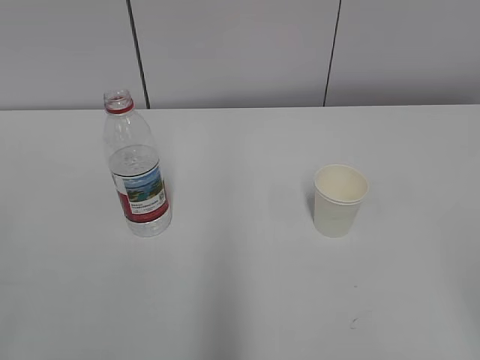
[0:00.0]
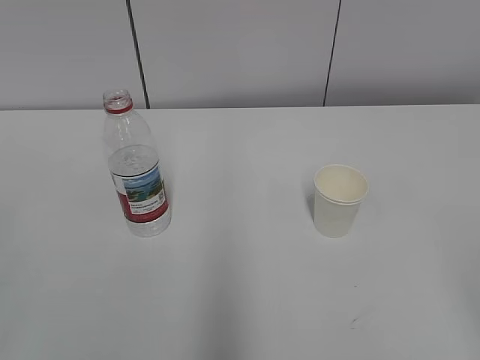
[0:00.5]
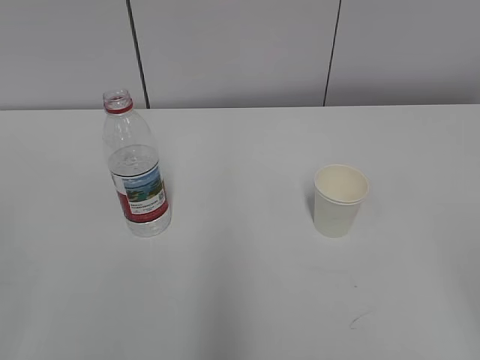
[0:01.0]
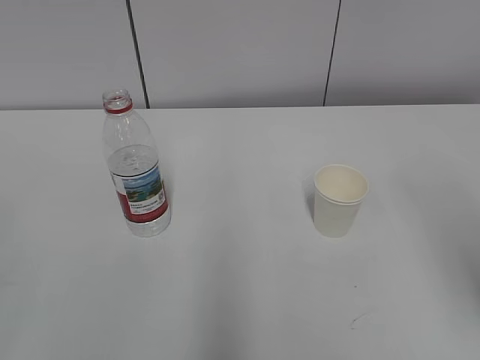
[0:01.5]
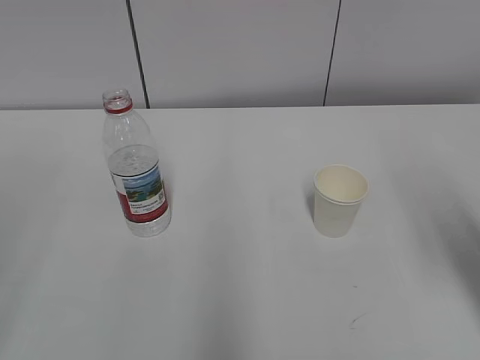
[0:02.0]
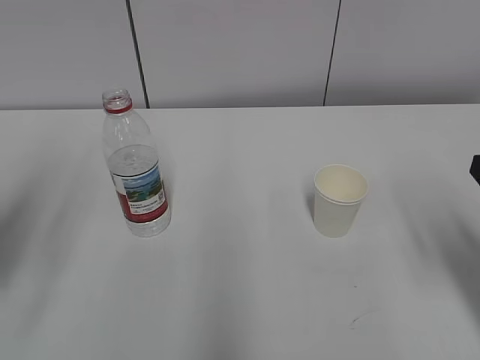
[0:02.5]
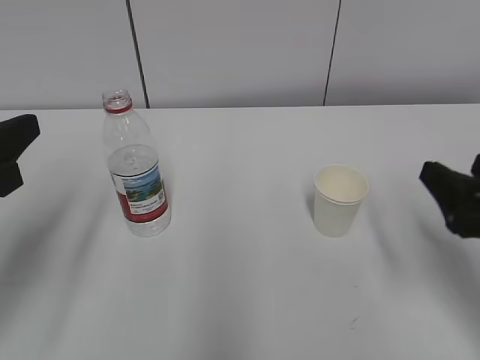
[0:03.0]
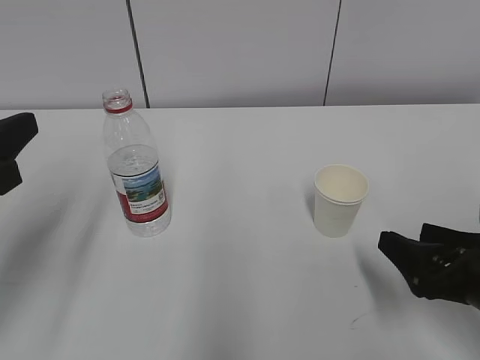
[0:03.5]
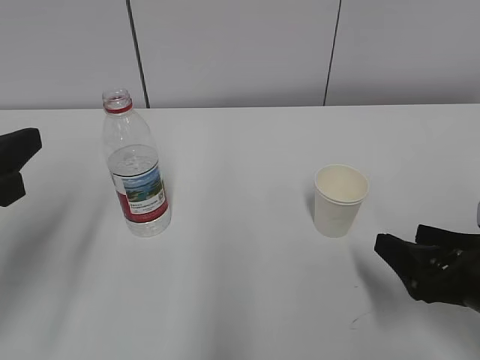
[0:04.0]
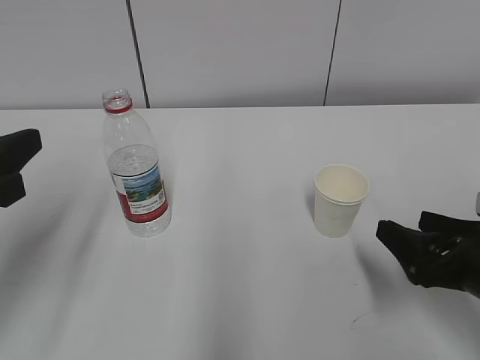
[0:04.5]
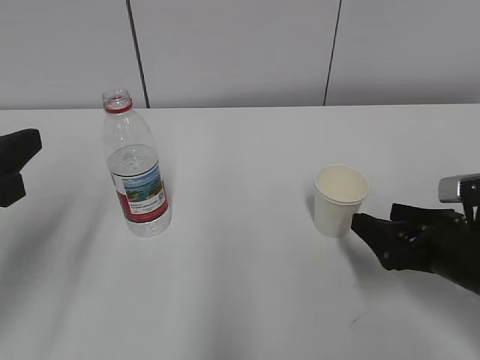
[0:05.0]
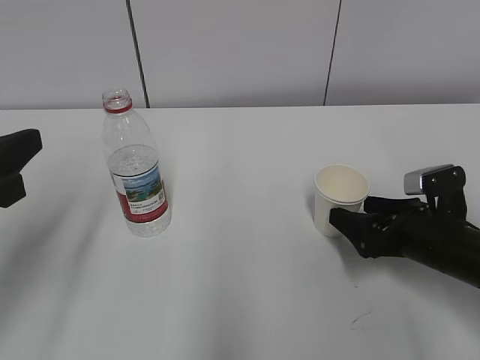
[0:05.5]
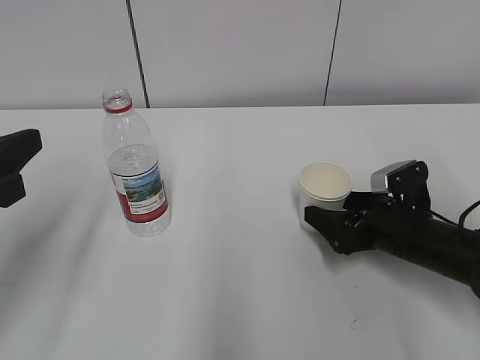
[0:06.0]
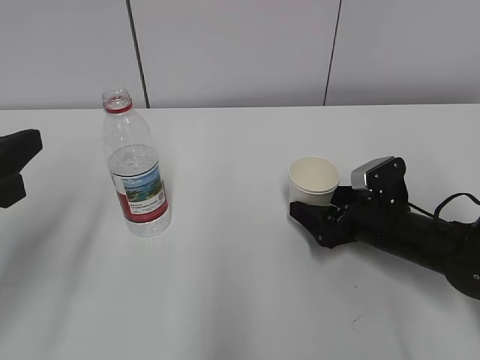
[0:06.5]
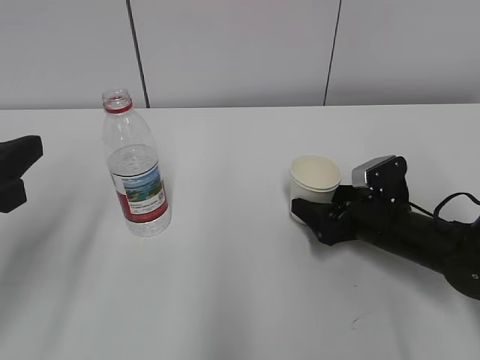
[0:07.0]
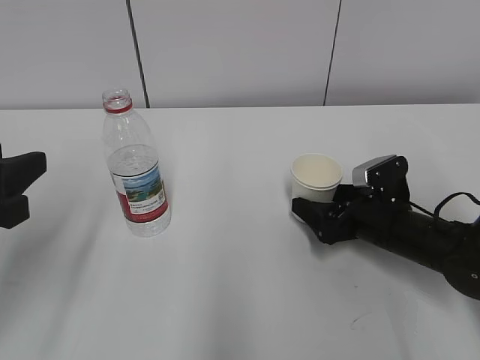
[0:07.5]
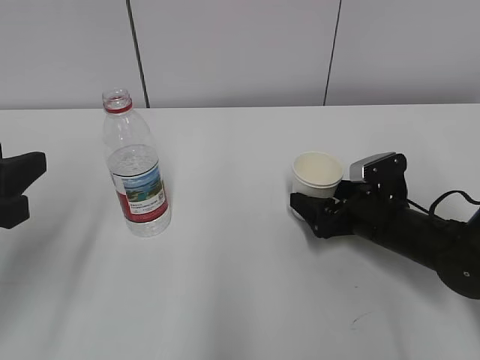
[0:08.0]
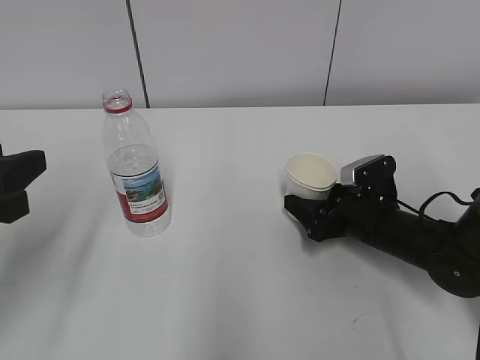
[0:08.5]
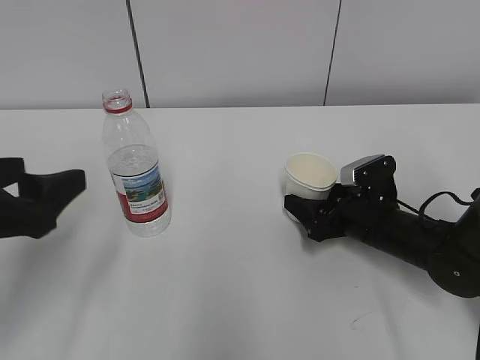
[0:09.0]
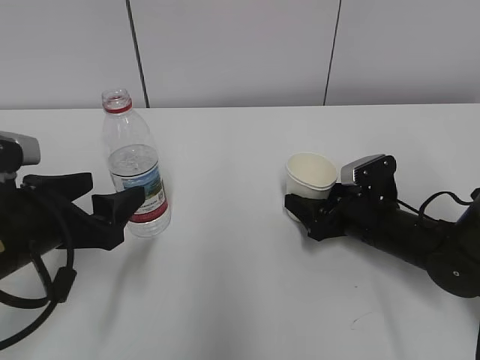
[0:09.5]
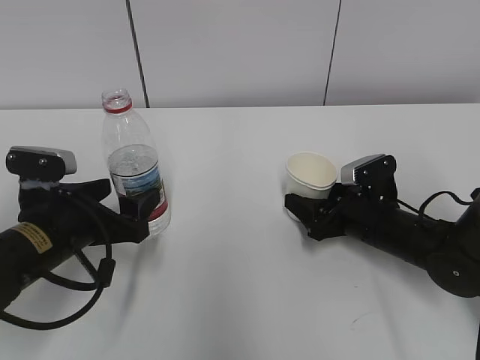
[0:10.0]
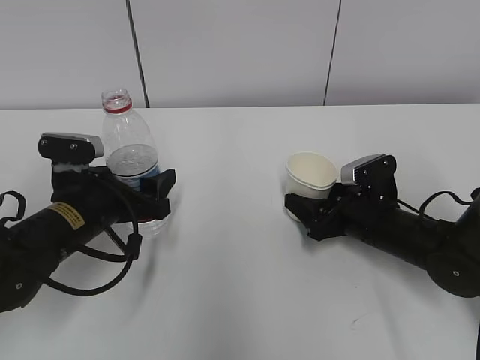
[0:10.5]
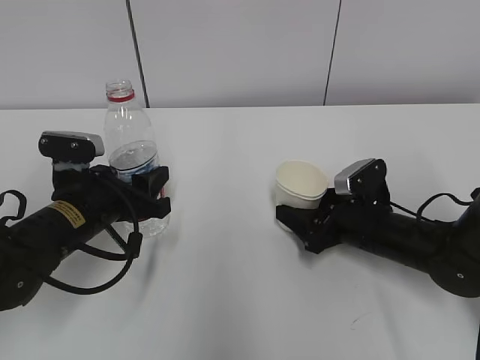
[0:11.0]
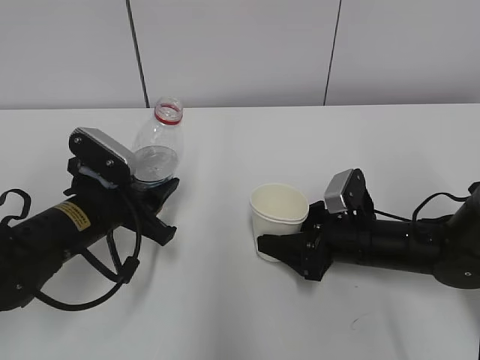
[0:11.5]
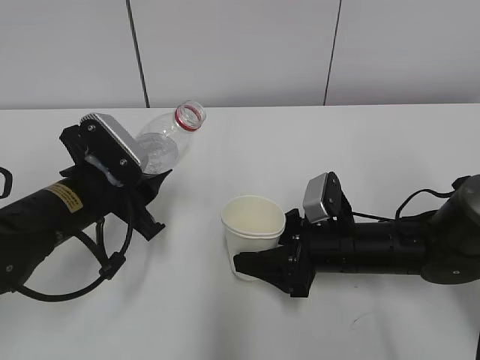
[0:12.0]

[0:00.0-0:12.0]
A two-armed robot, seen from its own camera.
Step, 0:00.0 to 0:08.5: Grab the paper cup with the right hand.
Step, 0:09.0 to 0:09.5: Grab the water bottle with the left hand.
0:02.0 to 0:04.0: The left gripper moves forward, downward and to the right, about 20 cm; the right gripper shifts some 15 cm downward.
0:04.0 to 0:06.0: The right gripper travels forward and downward by approximately 15 cm, and opens.
0:06.0 to 0:08.0: The right gripper closes, then reopens.
0:08.0 to 0:10.0: The left gripper moves downward, forward and to the right, about 15 cm, and opens up. The right gripper closes.
0:10.0 to 0:12.0: The right gripper travels to the left by some 5 cm. The left gripper closes up.

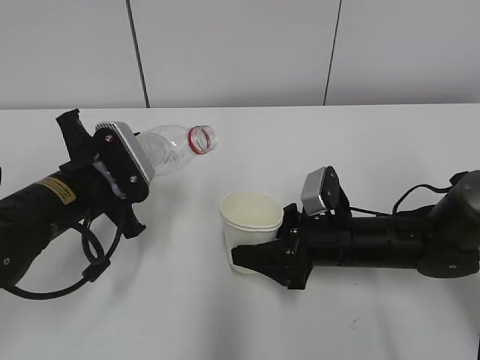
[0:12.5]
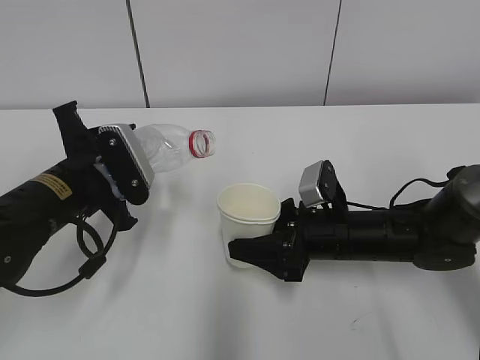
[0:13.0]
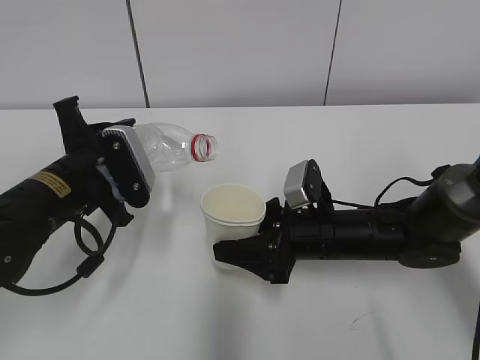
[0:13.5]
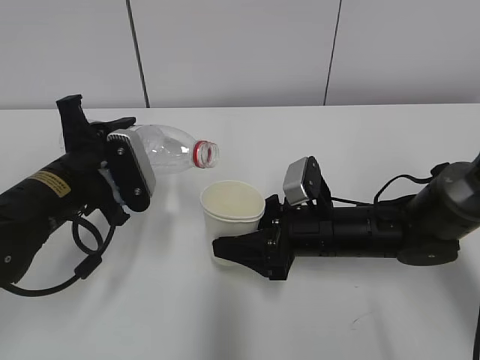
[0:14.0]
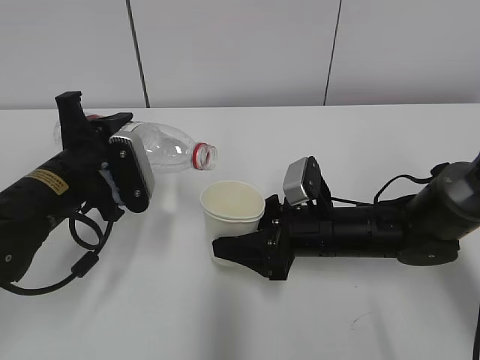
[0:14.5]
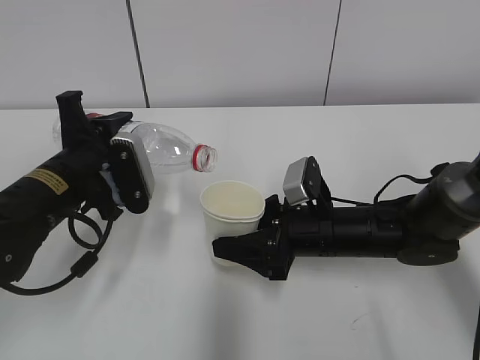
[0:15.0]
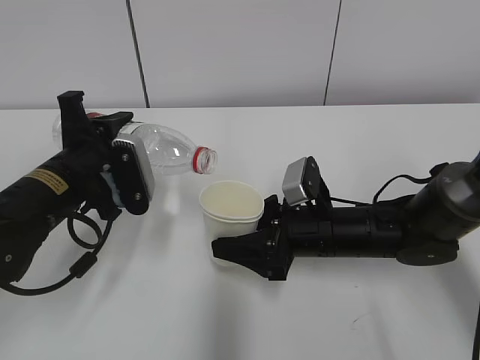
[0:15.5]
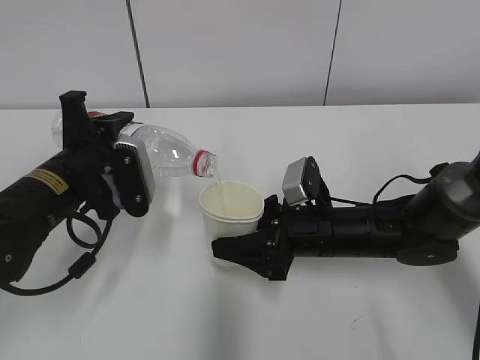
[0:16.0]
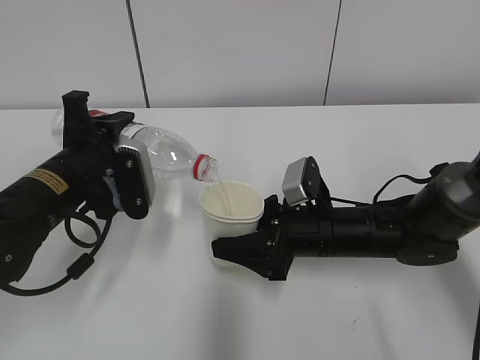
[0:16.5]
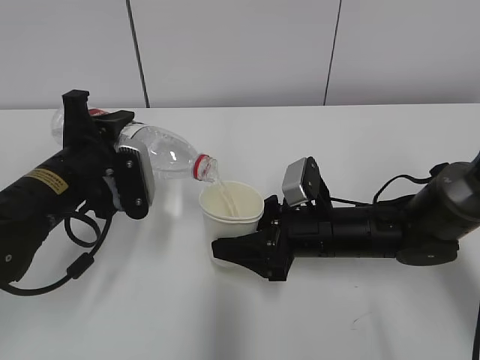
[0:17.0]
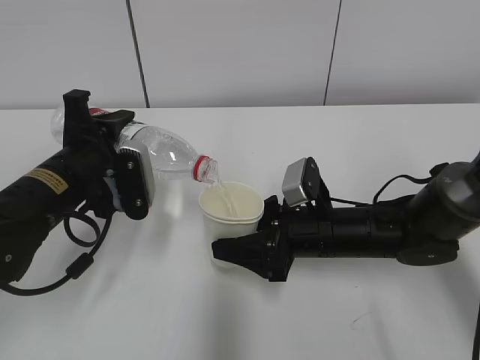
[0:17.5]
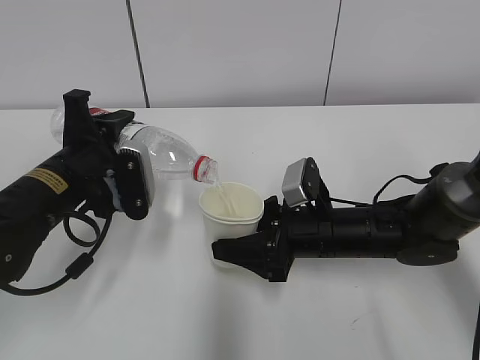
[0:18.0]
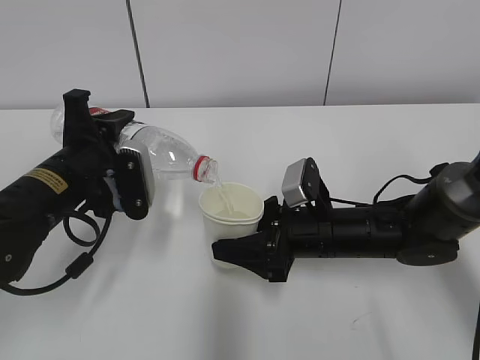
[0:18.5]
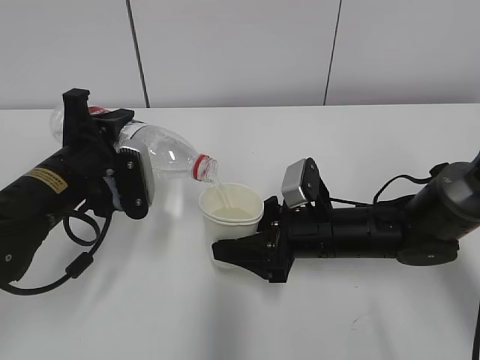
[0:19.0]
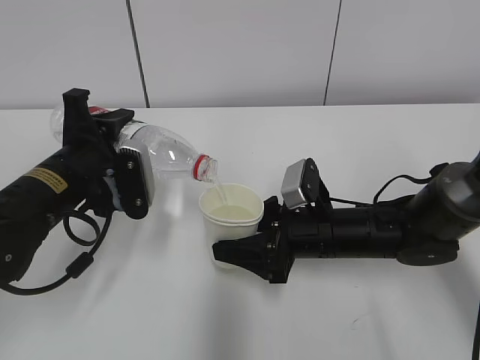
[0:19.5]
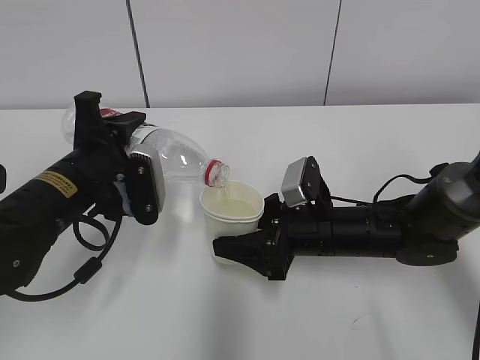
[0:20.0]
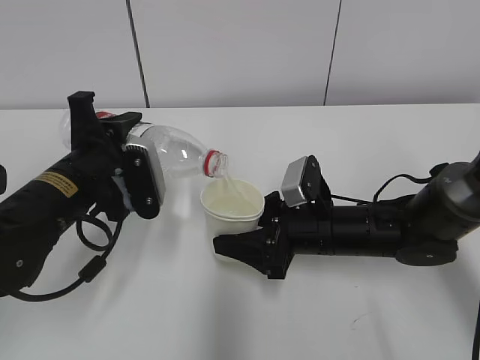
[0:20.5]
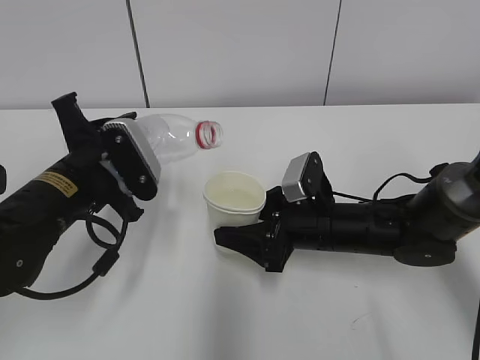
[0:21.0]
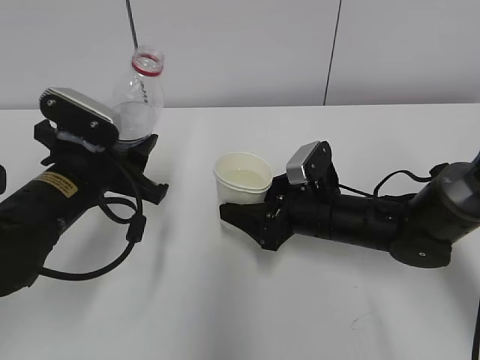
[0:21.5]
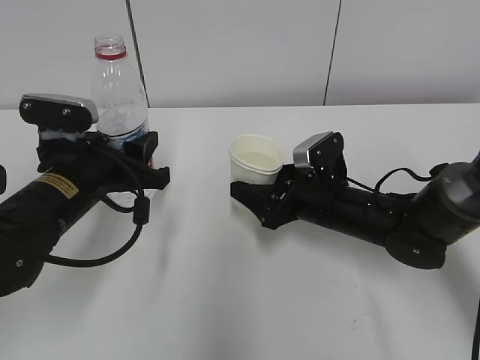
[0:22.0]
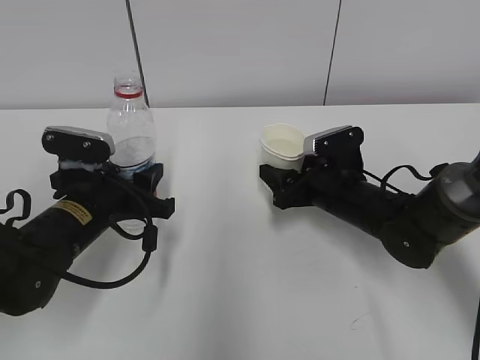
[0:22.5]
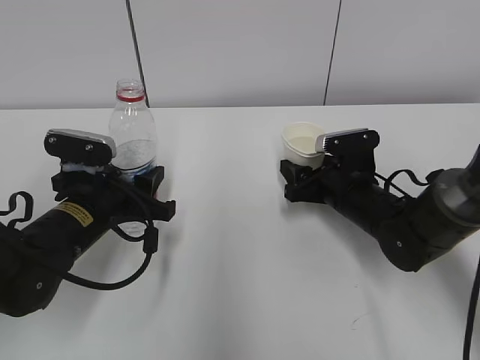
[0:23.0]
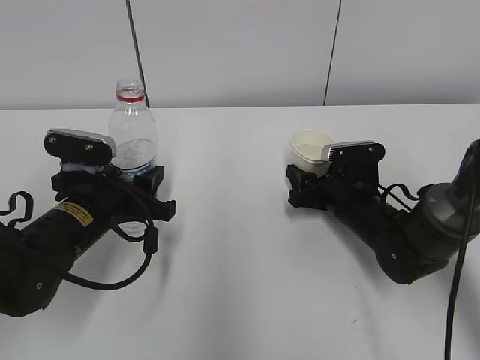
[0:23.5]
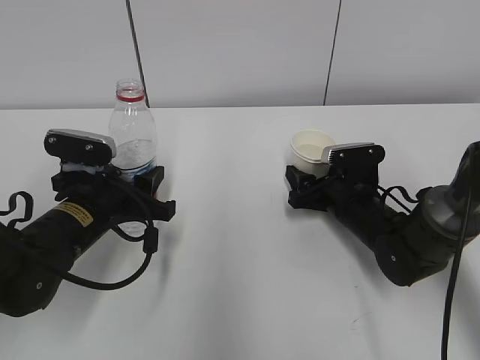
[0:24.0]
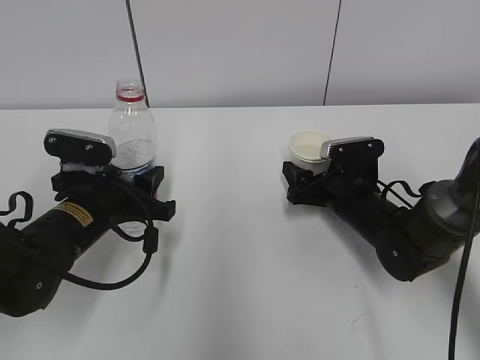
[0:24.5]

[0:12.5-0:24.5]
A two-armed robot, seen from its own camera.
Step, 0:13.5 to 0:17.0: Fill water with the right hand.
Step, 0:13.5 to 0:17.0: Pour water with the left hand.
Step, 0:18.5 to 0:20.0: Place the paper cup with the right hand.
Step, 0:20.5 to 0:22.5: Place the water bottle with the left hand.
0:14.5 to 0:16.5: The grippers make only small movements.
0:16.5 to 0:18.5: Both grippers stay put.
0:18.5 to 0:20.5: There are only small adjustments of the grippers.
0:20.5 to 0:22.5: The right gripper ends up some 5 cm from where it was.
0:22.5 to 0:24.5: The right gripper opens.

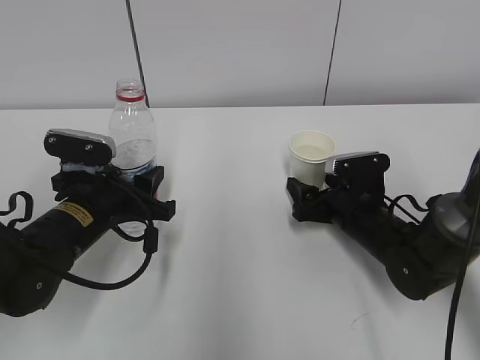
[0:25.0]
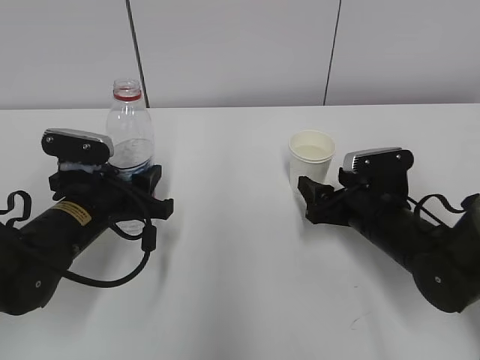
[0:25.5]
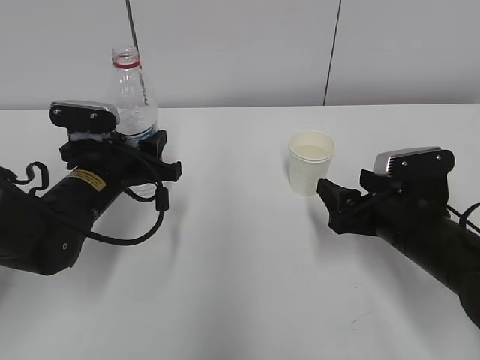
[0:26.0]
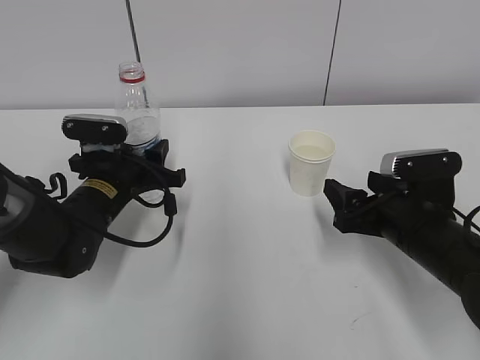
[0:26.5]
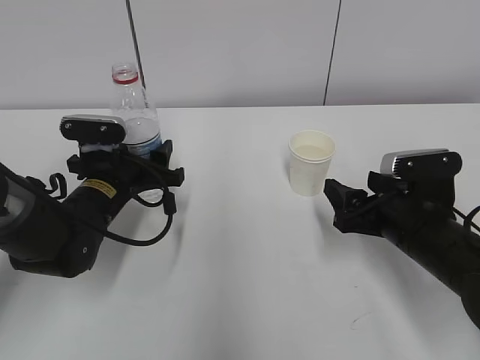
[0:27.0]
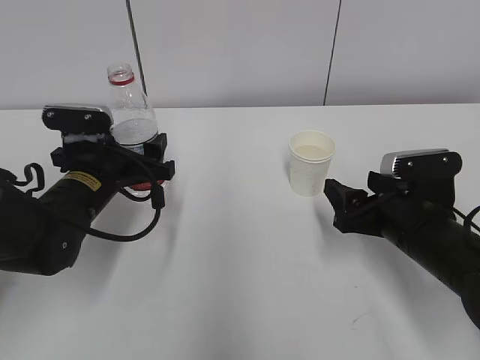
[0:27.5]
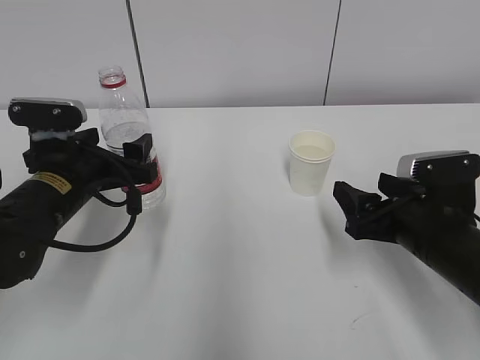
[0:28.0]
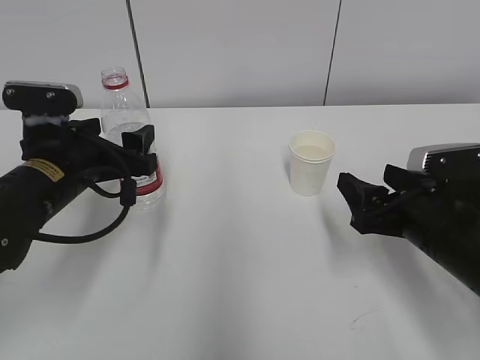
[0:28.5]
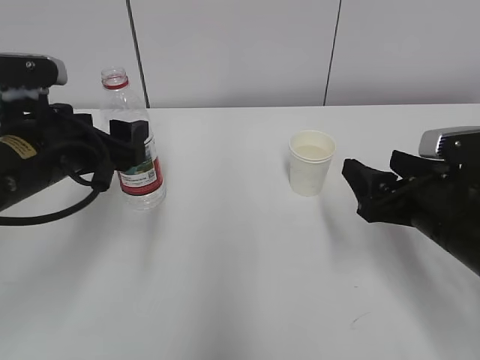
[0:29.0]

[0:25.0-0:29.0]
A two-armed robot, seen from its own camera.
0:25.0 to 0:27.0: The left gripper is displaced forward by approximately 5 cm, and opens. Meanwhile the right gripper shifts approximately 10 cm backward and upward.
0:27.0 to 0:29.0: The right gripper shifts by about 5 cm, while the left gripper heads upward and backward, covering roughly 15 cm.
